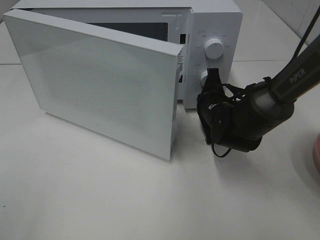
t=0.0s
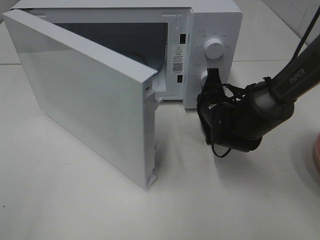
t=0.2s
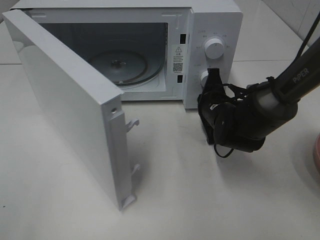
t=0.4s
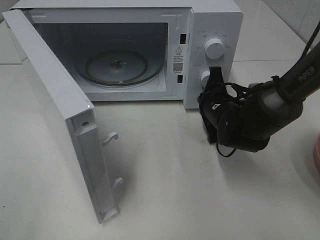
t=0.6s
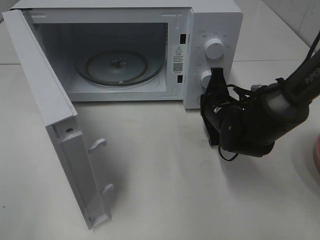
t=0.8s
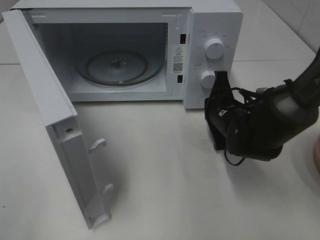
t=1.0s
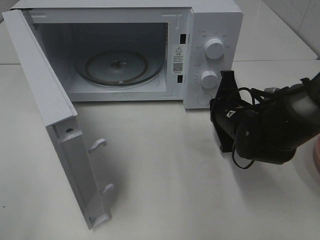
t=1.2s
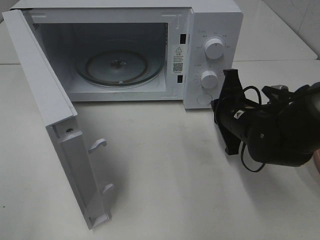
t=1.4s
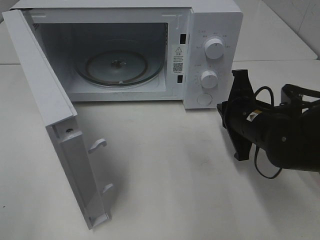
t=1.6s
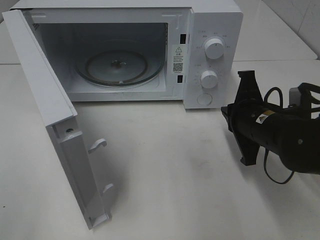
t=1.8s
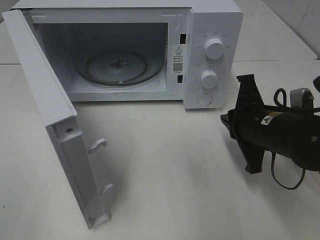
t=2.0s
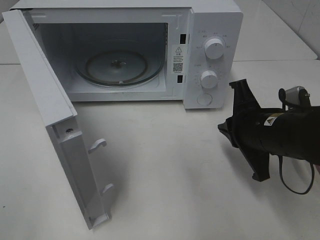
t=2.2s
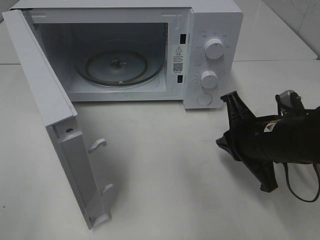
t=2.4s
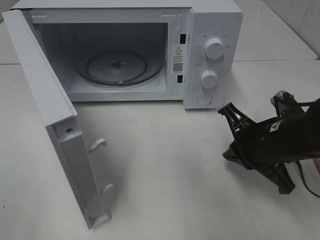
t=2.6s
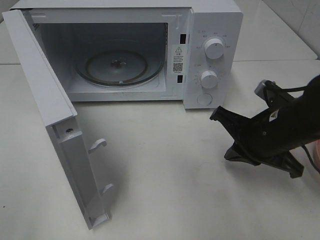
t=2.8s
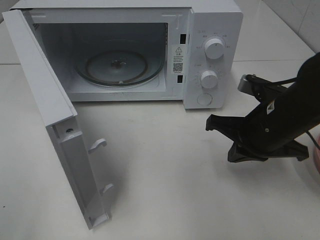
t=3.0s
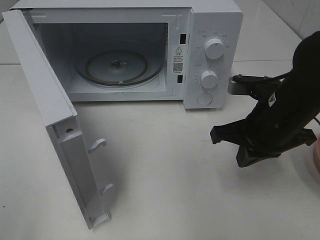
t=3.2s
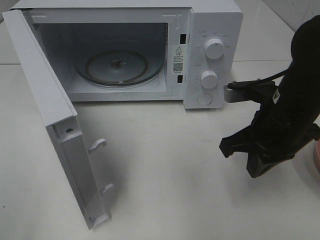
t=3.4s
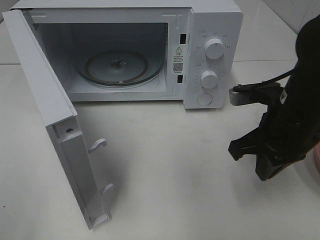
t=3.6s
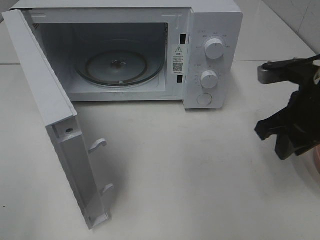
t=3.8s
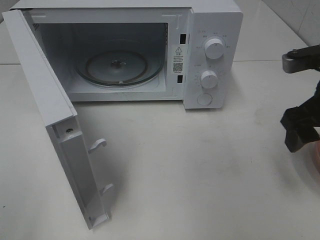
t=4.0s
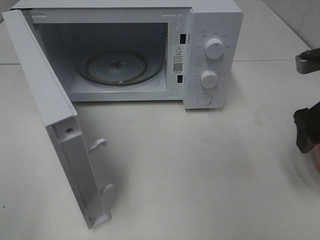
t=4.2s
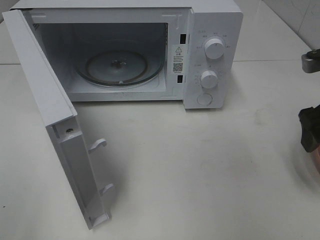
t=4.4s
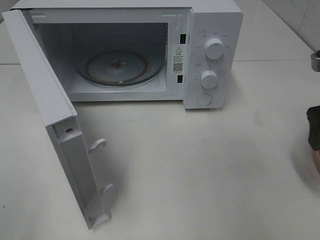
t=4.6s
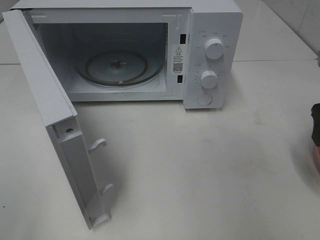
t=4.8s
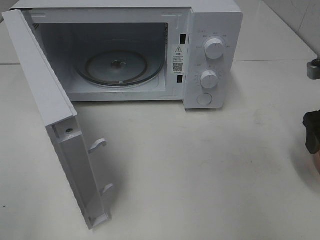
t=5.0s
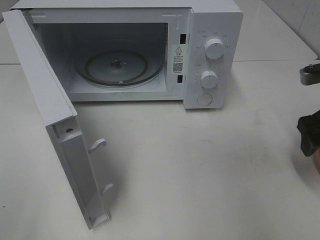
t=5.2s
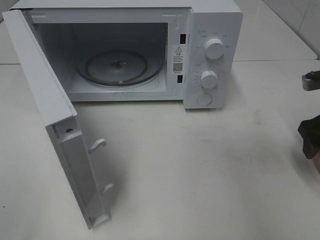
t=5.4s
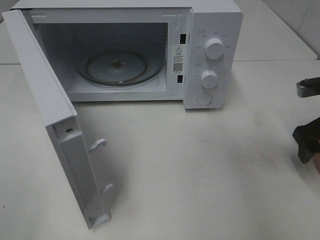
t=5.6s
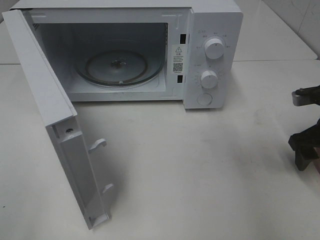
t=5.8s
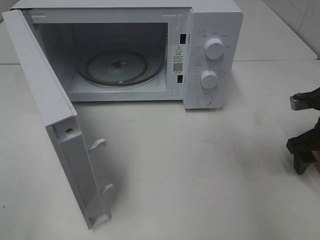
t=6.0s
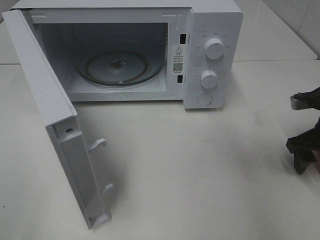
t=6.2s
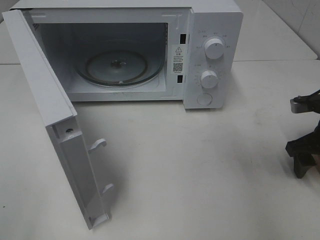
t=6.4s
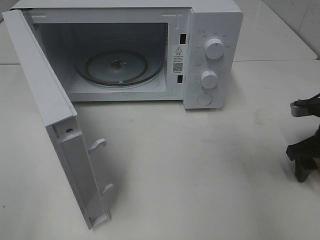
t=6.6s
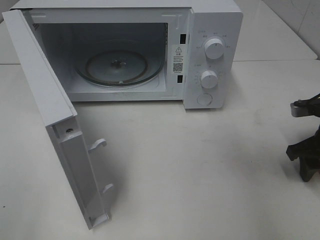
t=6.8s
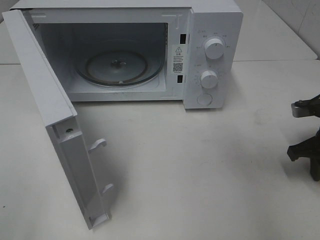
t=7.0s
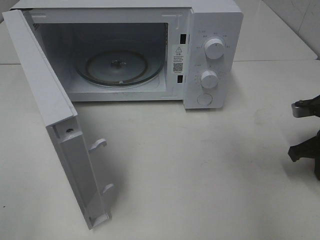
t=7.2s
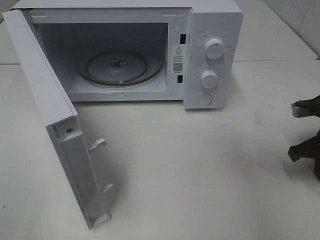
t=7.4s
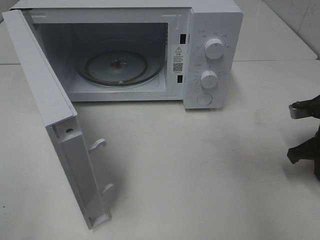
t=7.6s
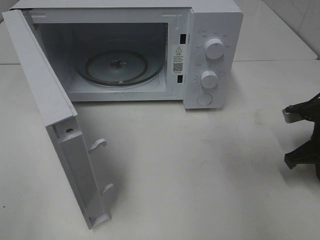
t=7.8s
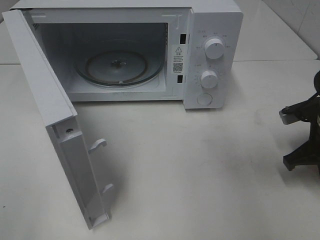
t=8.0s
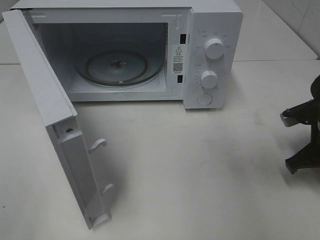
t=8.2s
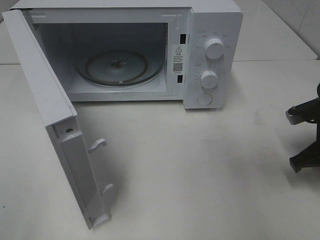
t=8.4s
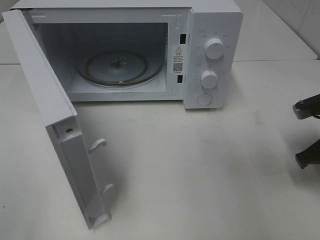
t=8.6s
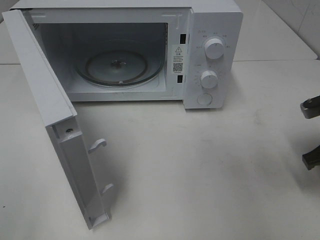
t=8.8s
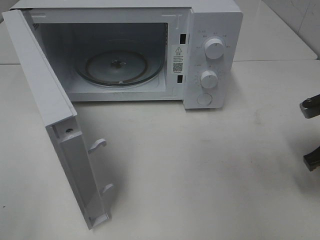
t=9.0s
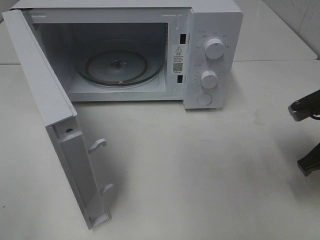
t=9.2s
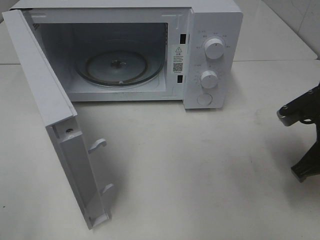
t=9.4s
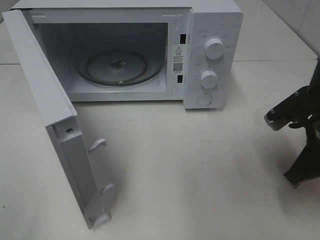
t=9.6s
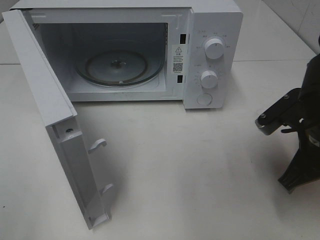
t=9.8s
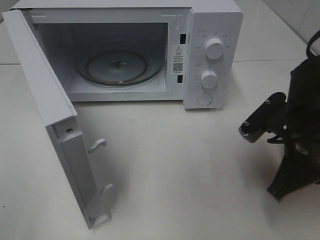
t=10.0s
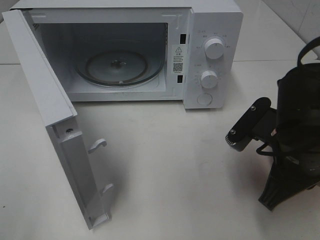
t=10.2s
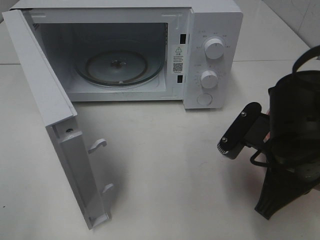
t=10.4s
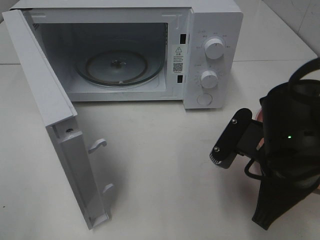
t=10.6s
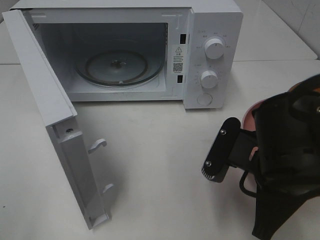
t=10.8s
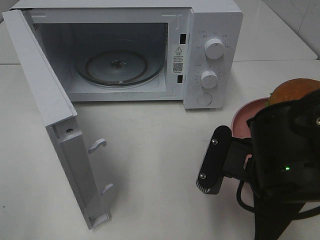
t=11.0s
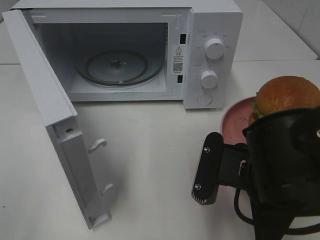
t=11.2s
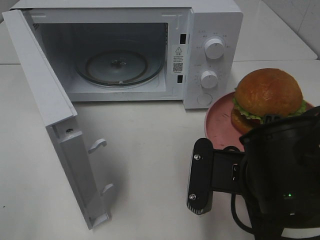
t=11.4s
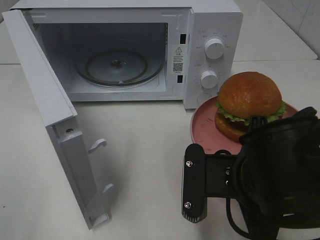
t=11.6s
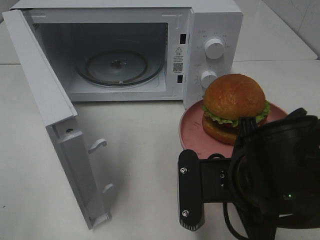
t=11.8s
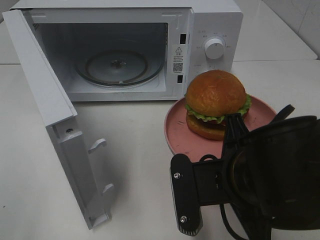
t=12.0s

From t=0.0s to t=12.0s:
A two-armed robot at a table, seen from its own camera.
Task of the whole recording: Heat the burger.
Step, from t=1.4s to t=8.2s: Right hand: grab the plate with the hamburger.
From t=0.0s to t=1.6s: The right gripper is displaced backward by about 10 cm.
From t=3.0s to t=4.4s: The right gripper goes about 10 cm to the right and upward, and opens.
From t=4.4s to t=6.0s: The right gripper travels downward by some 10 cm.
From t=6.0s to t=7.6s: The right gripper closes up.
From t=7.6s to t=9.0s: The right gripper moves some 5 cm.
From t=9.0s to t=10.4s: The right gripper shifts approximately 15 cm to the left and backward.
From t=10.4s to t=12.0s: The right gripper is displaced to the left by some 5 cm.

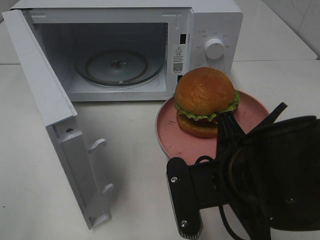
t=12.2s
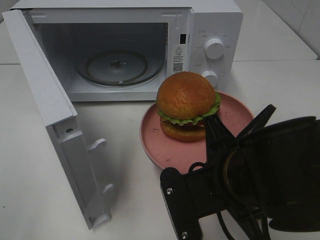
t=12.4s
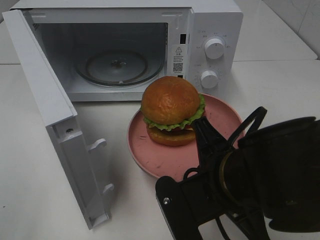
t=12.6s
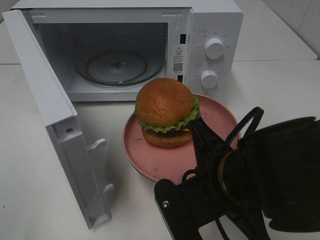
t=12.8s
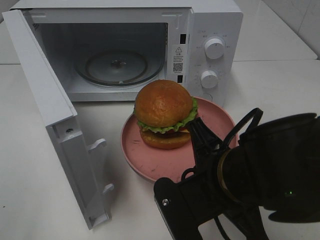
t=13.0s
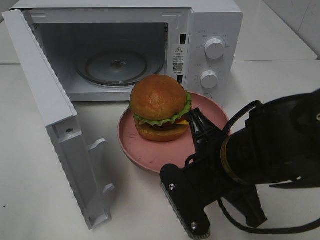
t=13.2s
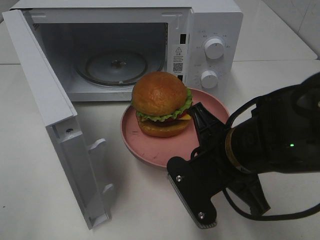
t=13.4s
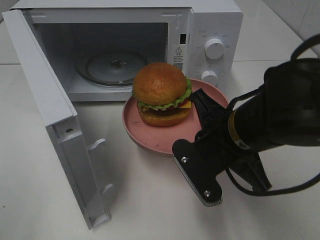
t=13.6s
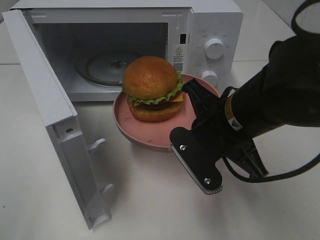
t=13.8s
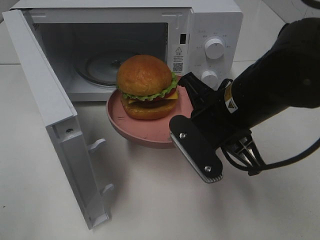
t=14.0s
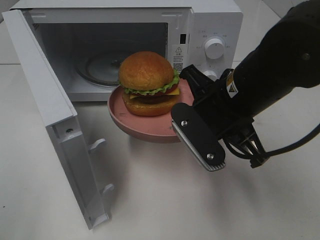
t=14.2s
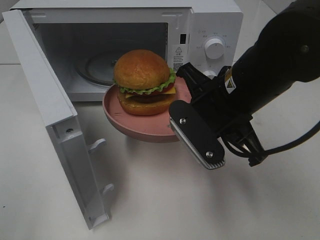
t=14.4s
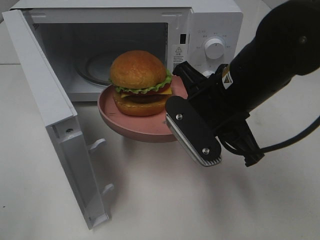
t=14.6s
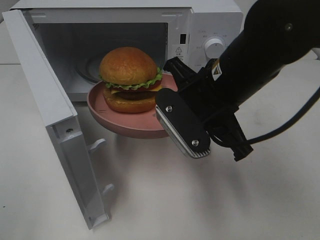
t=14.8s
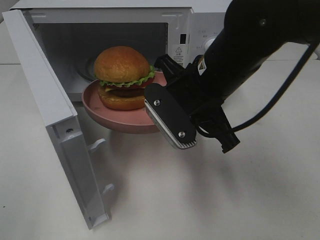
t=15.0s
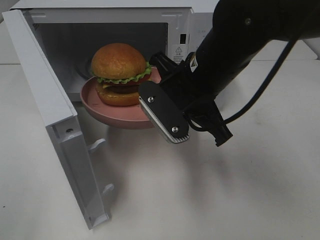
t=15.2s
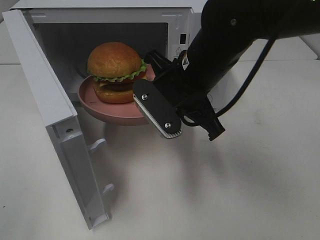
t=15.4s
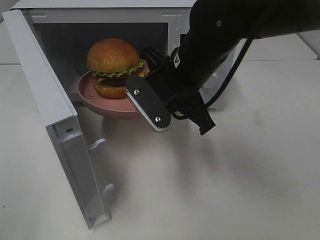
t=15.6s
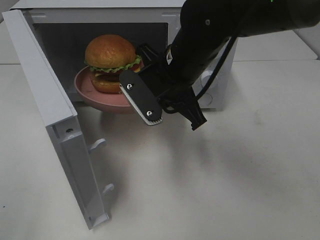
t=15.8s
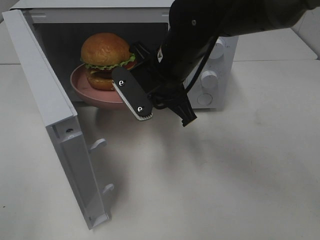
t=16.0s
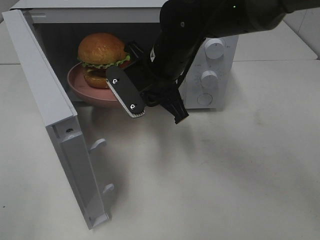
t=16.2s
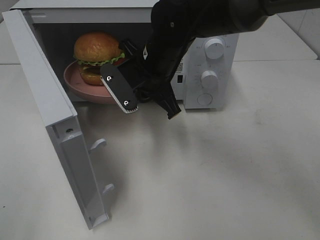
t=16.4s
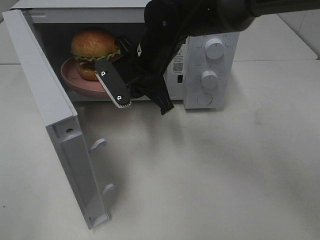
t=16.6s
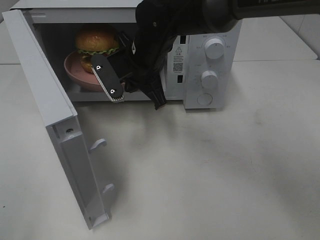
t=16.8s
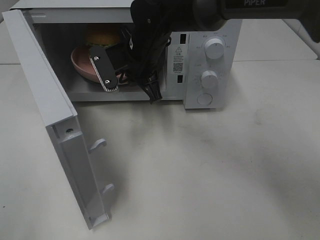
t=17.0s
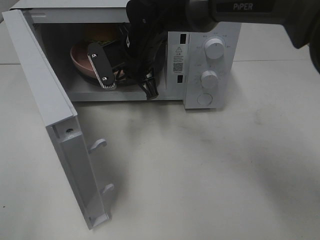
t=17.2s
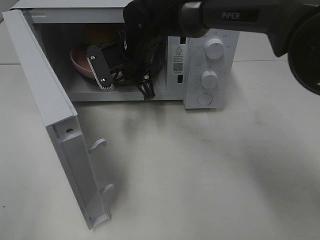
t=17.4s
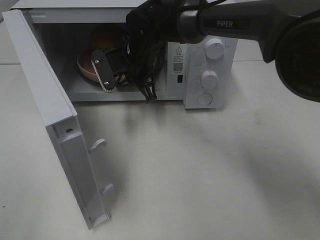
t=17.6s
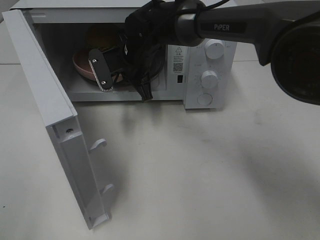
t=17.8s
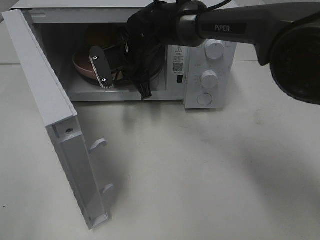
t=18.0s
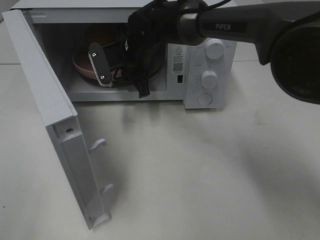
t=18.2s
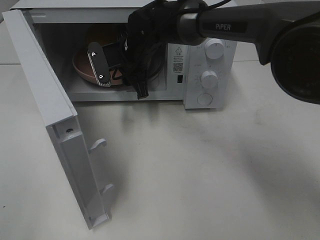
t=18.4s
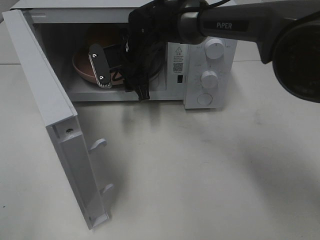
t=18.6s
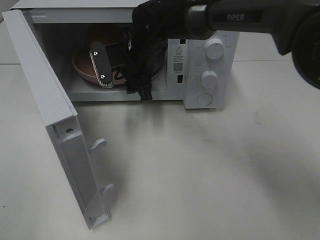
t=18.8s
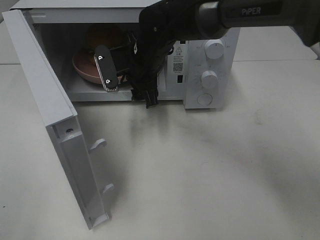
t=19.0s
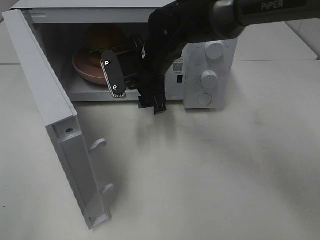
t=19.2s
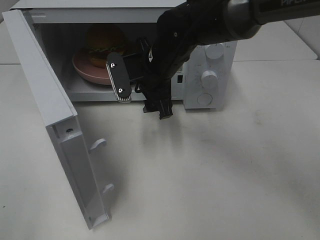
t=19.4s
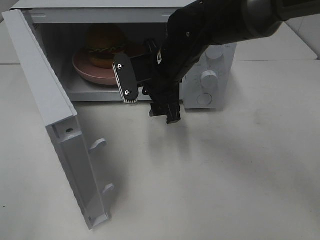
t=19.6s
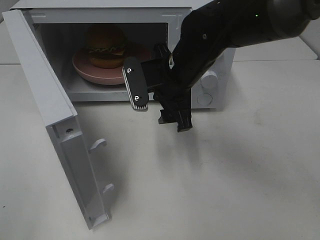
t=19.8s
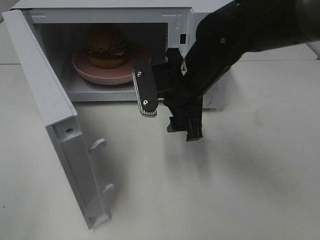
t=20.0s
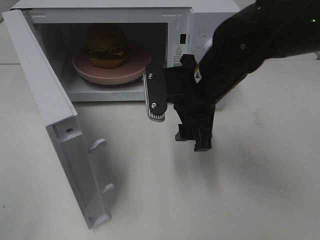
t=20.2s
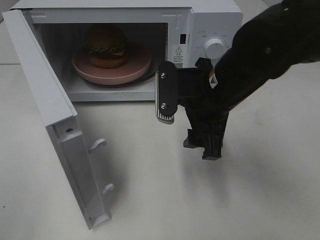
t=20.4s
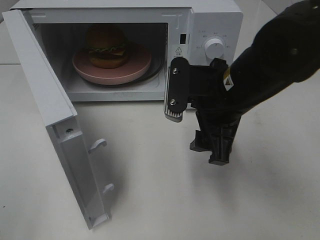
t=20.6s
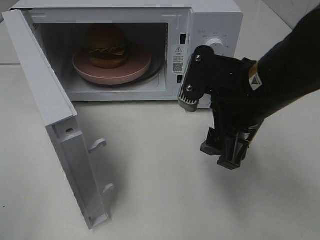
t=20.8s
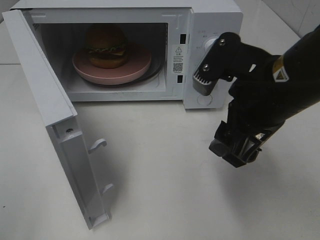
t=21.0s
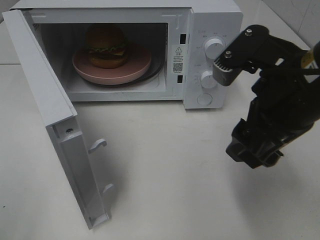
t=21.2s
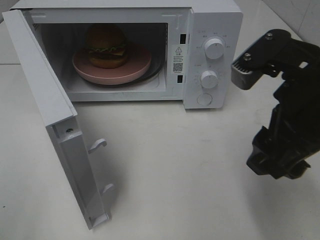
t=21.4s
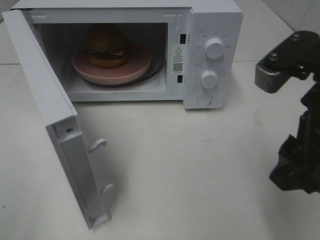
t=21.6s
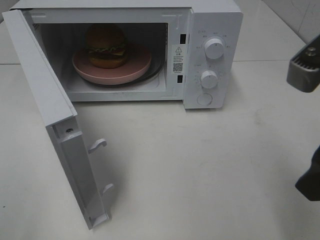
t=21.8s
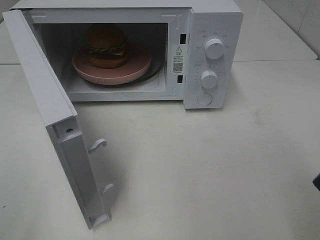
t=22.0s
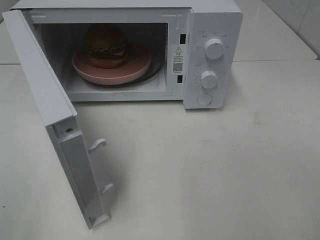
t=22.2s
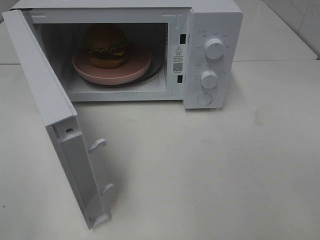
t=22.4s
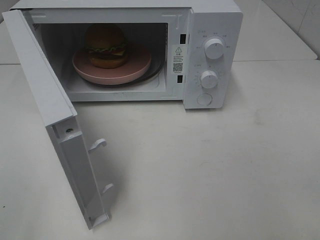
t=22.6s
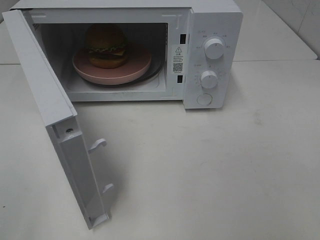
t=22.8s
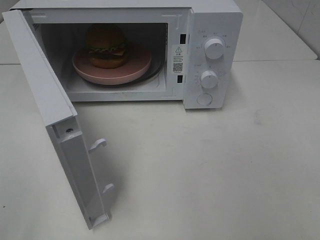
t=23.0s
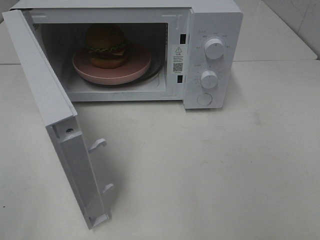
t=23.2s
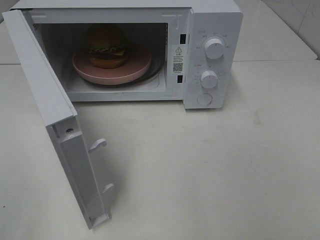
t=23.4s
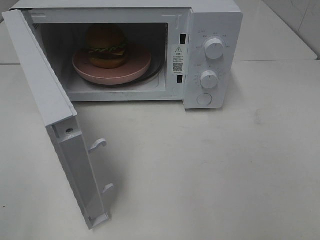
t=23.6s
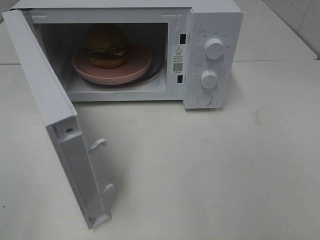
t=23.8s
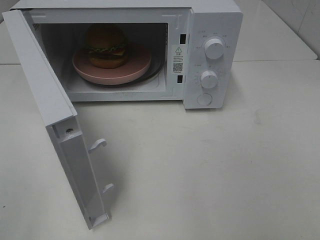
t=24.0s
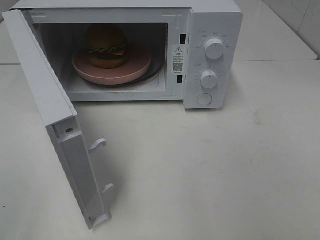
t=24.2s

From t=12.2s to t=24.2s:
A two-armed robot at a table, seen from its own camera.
Task of the whole recording: Heat the burger.
Step, from t=12.2s to t=18.4s: Right hand: place the plate in the microwave.
From t=12.2s to t=13.8s: The right gripper goes approximately 5 cm forward.
From t=13.8s to t=15.2s: The right gripper travels forward by some 5 cm.
From t=15.2s to t=16.6s: The right gripper heads forward and to the left, covering roughly 10 cm.
From t=16.6s to t=18.2s: The right gripper moves forward, some 10 cm, and opens up.
From t=18.2s to t=19.8s: The right gripper heads backward and to the right, covering roughly 15 cm, and opens.
From t=19.8s to t=21.2s: The right gripper shifts approximately 20 cm backward, to the right and upward.
From t=21.2s to t=22.6s: The right gripper moves backward and to the right, roughly 15 cm.
